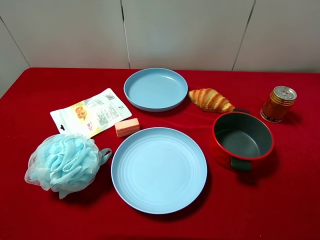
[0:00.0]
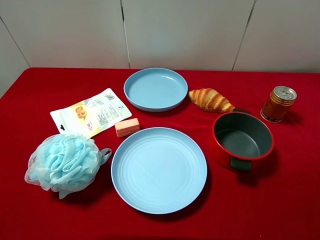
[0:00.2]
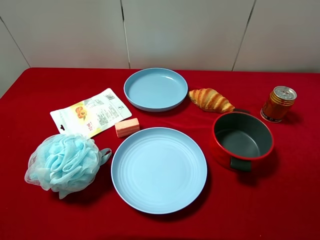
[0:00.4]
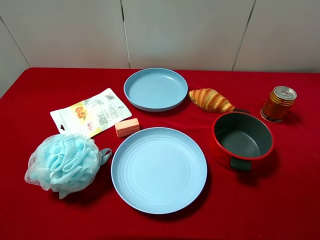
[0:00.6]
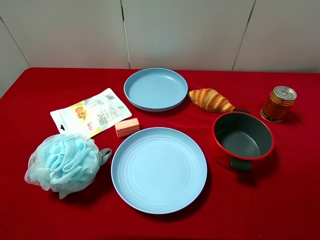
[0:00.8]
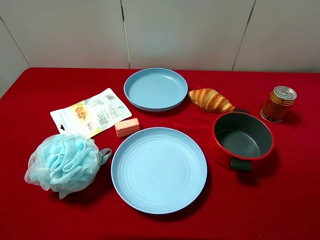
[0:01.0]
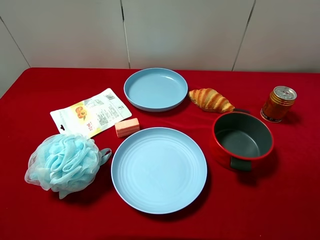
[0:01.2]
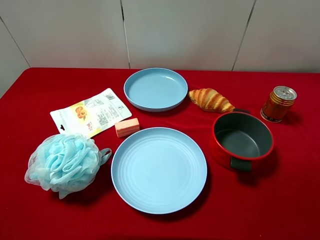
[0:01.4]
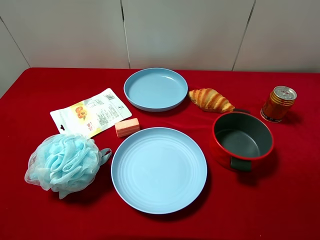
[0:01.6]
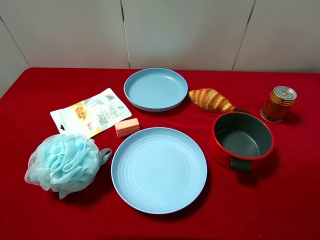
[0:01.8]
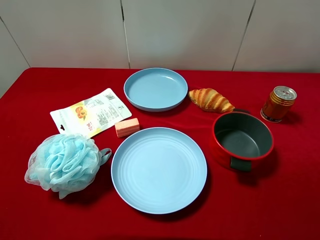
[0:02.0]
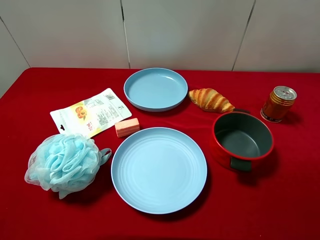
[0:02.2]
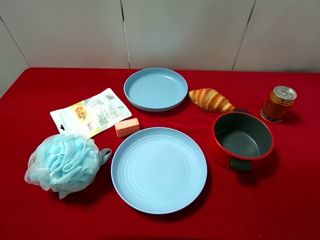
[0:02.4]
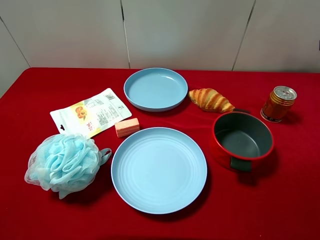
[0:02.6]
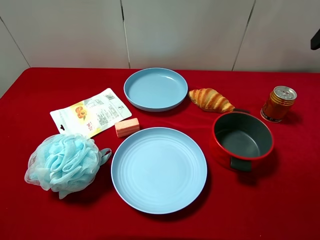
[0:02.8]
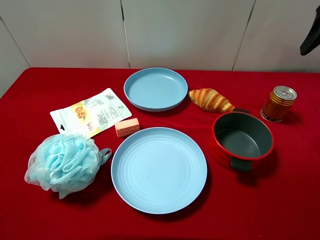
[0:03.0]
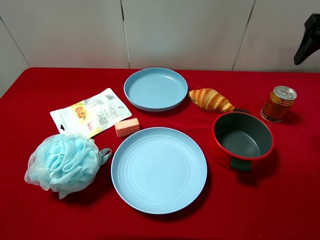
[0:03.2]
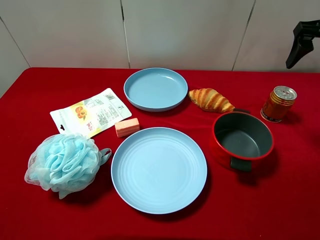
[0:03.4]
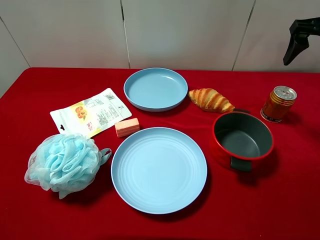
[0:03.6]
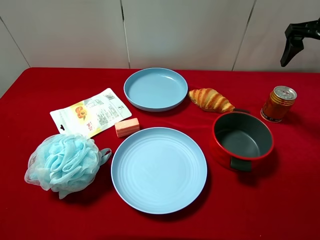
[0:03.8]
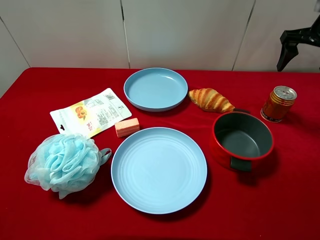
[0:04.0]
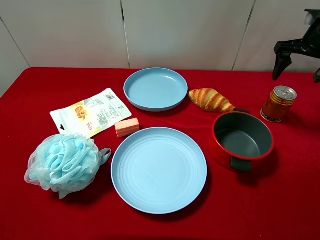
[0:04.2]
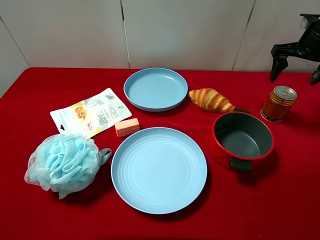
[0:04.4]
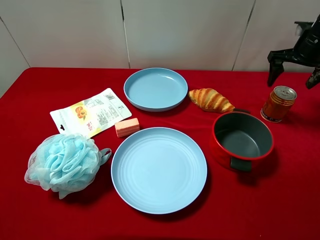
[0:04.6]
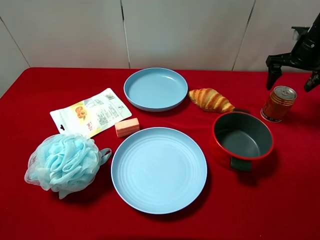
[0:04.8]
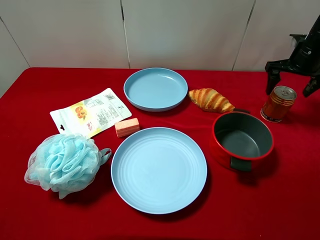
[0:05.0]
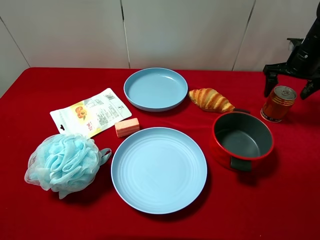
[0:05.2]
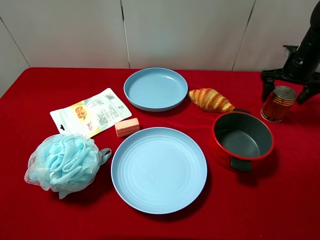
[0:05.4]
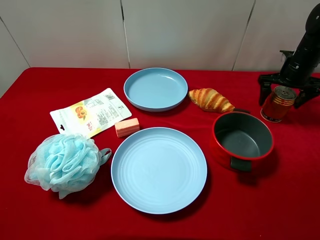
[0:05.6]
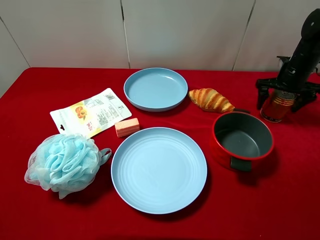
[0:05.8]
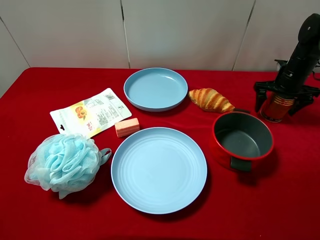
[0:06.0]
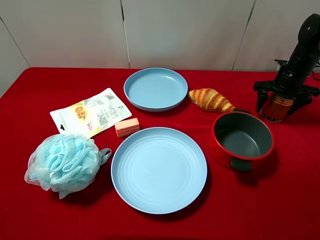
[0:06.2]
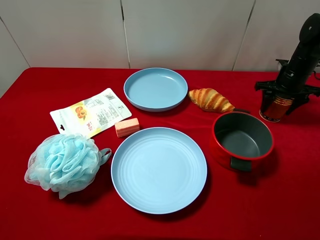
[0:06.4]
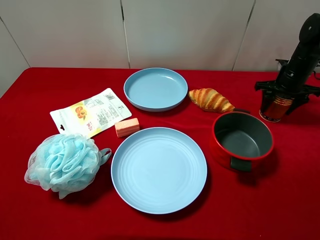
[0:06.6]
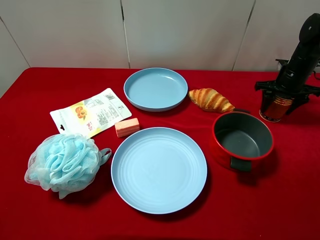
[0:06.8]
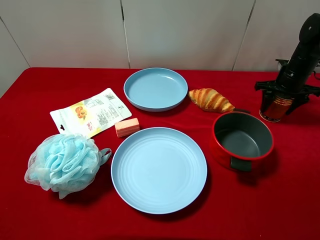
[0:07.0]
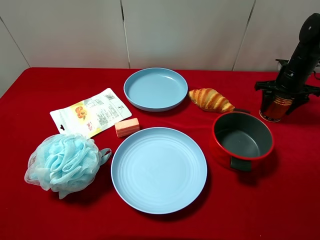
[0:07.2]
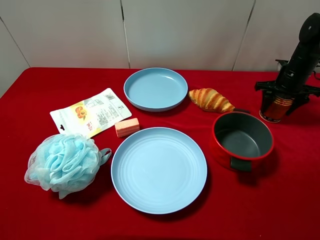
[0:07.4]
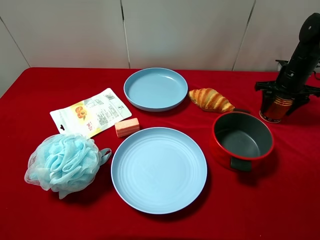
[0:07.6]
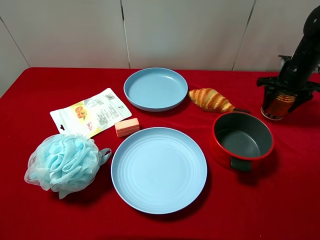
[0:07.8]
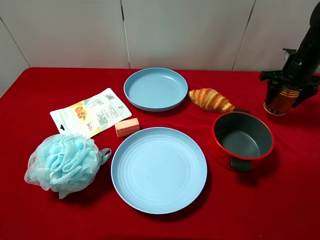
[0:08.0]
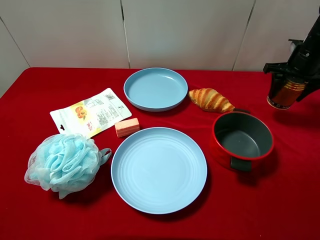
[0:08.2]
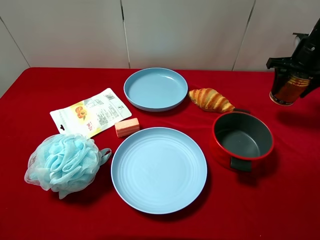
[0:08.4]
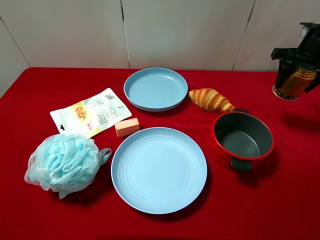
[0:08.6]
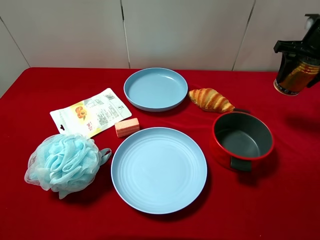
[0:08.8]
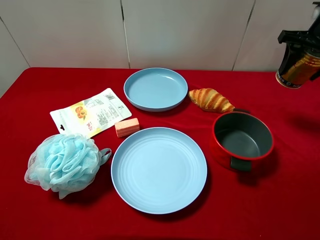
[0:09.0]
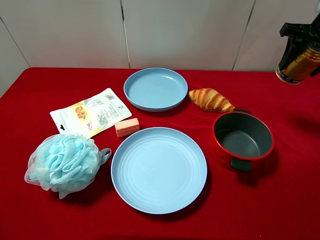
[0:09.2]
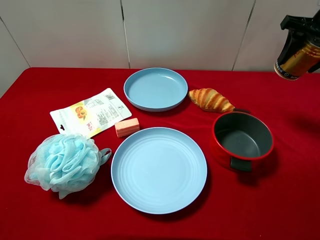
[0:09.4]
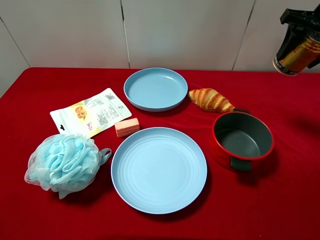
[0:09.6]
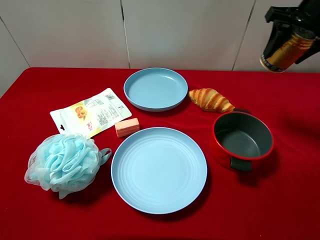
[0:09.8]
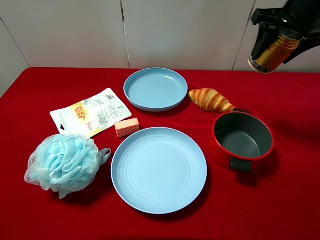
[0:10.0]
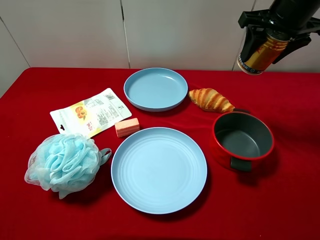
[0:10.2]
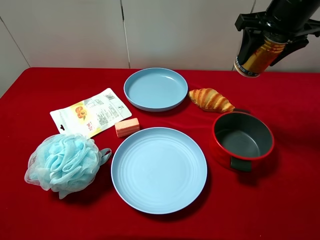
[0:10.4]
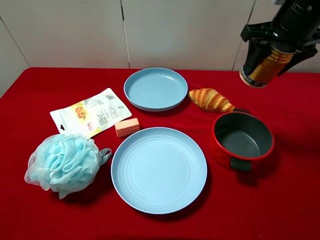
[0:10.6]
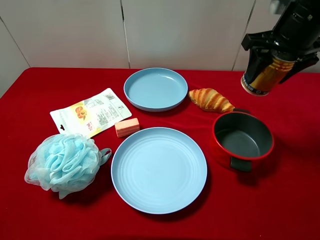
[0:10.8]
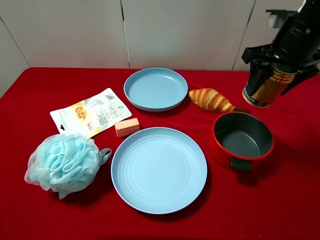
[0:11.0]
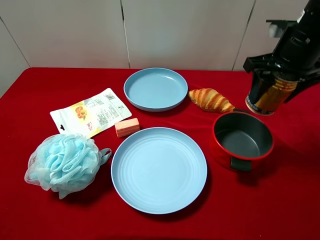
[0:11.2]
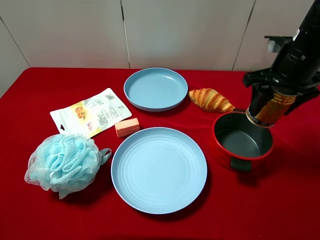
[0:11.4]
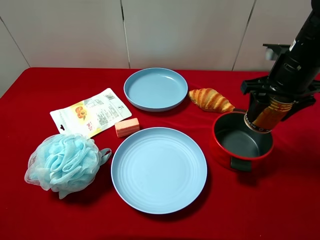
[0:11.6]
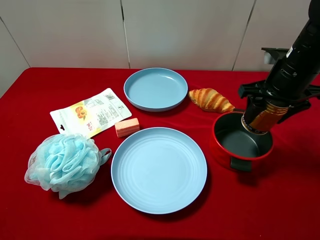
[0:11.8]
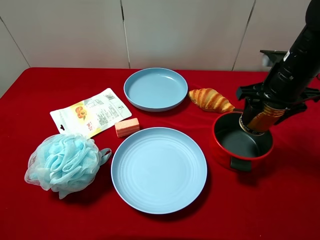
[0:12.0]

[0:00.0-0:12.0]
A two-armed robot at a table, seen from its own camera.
Task of the whole recording: pick up an item with a gripper and place it in a random container on the desktop.
0:03.0 to 0:04.4: The right gripper shifts about 15 cm forward and downward.
0:04.4 to 0:06.0: The right gripper travels downward by approximately 10 cm.
0:07.6 to 0:09.0: The right gripper travels upward by some 15 cm.
0:09.0 to 0:10.4: The right gripper travels to the left by roughly 10 cm.
0:10.4 to 0:12.0: The right gripper travels downward by approximately 10 cm.

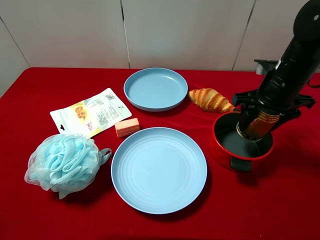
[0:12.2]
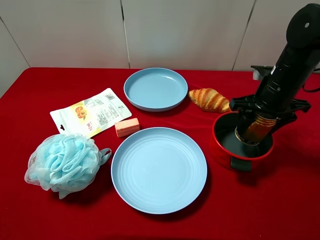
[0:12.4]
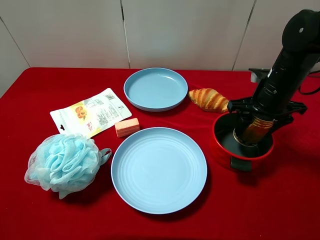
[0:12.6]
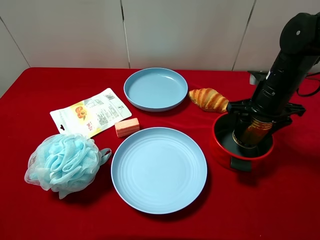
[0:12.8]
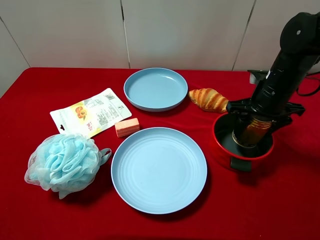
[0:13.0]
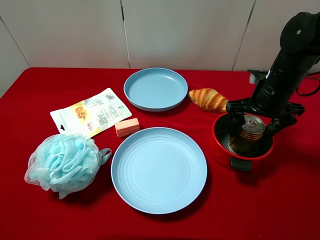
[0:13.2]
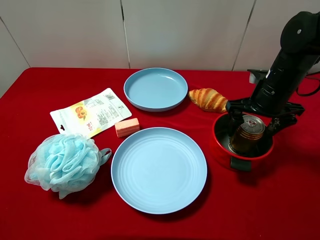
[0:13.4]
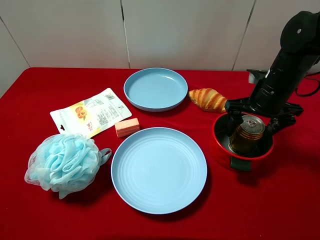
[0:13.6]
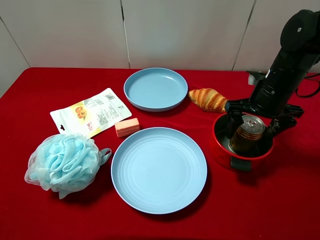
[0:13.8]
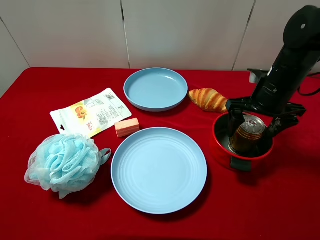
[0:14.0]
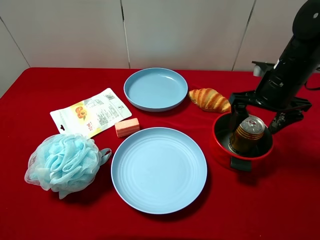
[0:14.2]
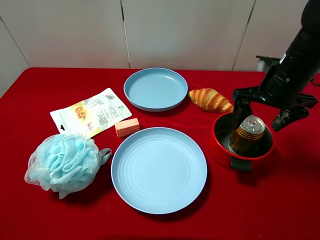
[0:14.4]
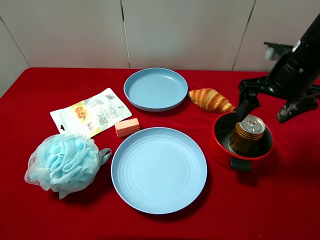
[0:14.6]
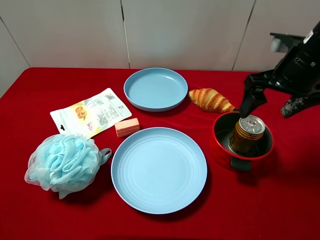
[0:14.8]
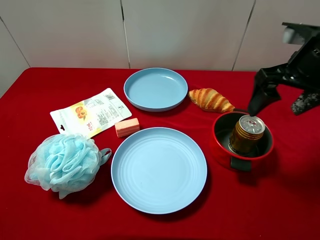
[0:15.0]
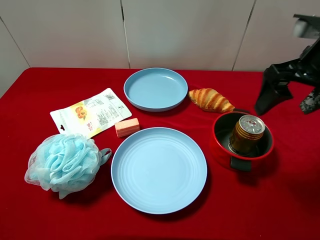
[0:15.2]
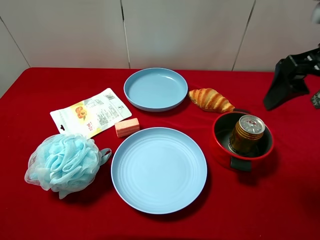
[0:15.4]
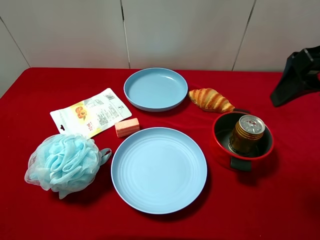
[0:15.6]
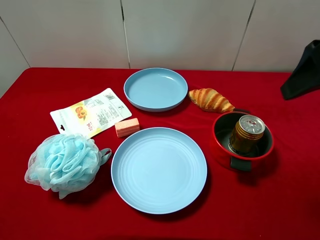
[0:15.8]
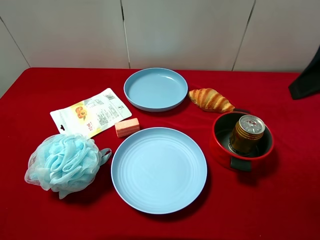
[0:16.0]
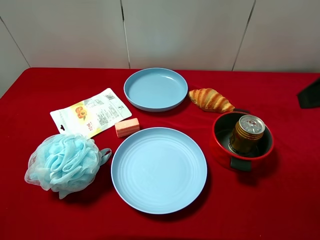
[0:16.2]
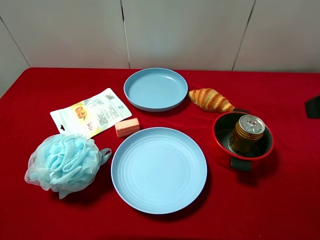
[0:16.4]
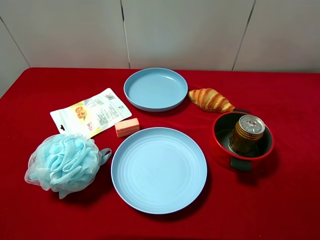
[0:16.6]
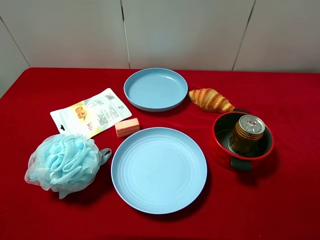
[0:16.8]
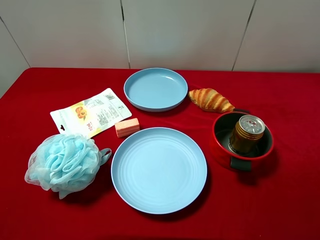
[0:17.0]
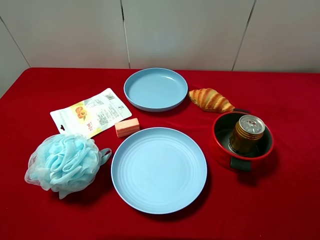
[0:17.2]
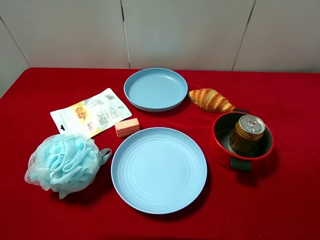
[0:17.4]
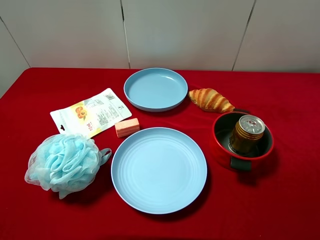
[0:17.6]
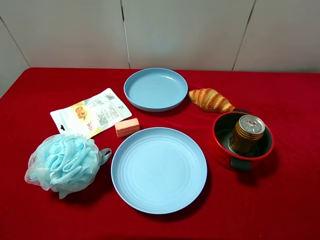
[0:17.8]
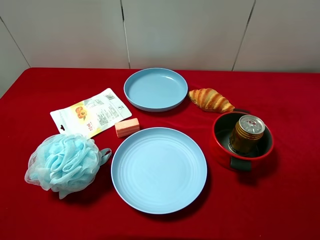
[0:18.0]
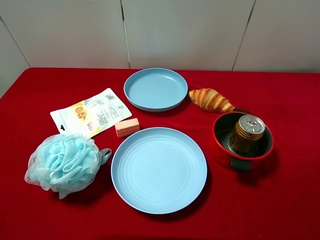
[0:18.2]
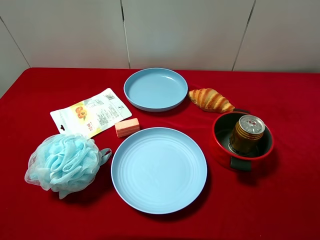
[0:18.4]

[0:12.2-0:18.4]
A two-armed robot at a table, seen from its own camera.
Task of the whole recording: pick up an item with a gripper and place it in a random container on the desktop.
0:12.2 to 0:13.8: The right gripper opens.
0:13.8 to 0:15.4: The right gripper moves upward and backward, roughly 15 cm.
0:15.4 to 0:16.8: The right gripper travels backward by some 15 cm.

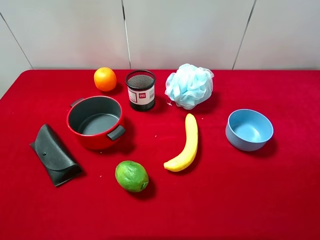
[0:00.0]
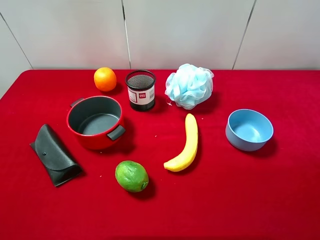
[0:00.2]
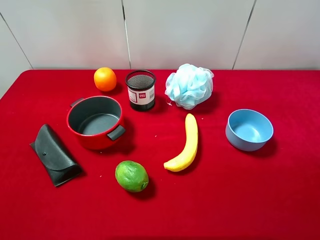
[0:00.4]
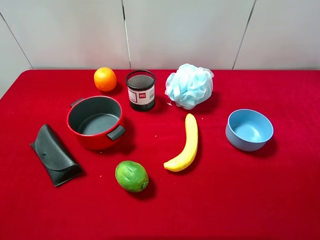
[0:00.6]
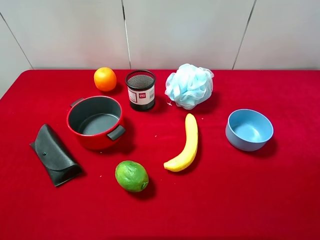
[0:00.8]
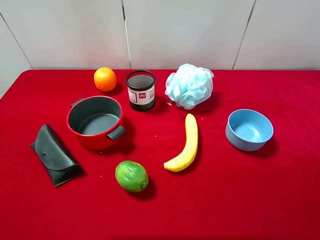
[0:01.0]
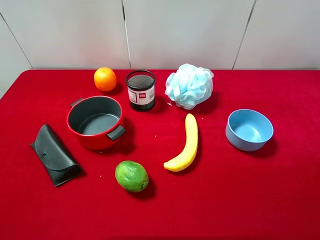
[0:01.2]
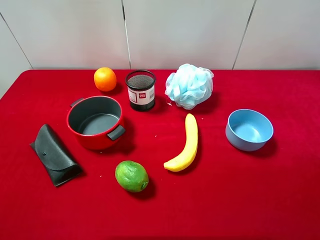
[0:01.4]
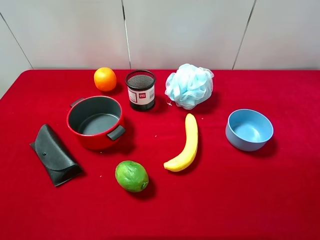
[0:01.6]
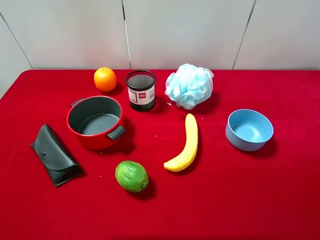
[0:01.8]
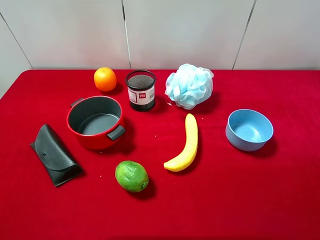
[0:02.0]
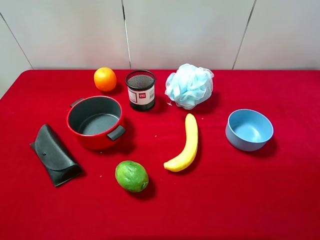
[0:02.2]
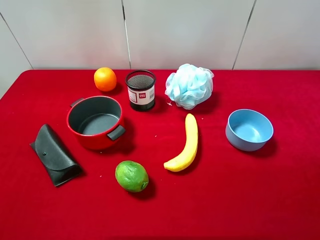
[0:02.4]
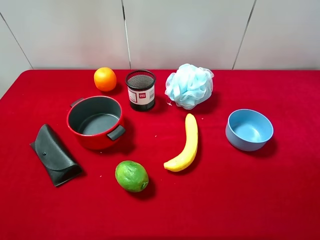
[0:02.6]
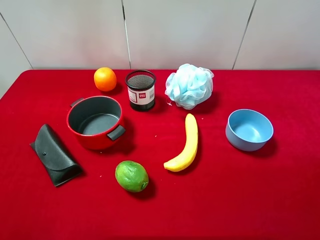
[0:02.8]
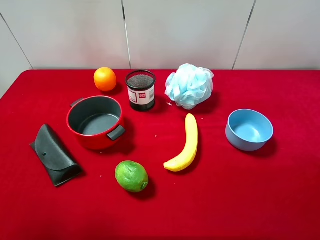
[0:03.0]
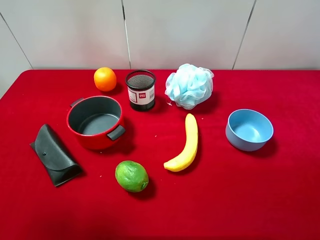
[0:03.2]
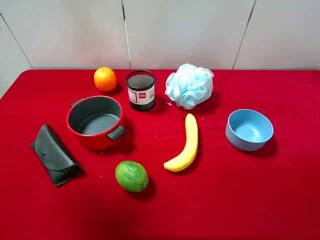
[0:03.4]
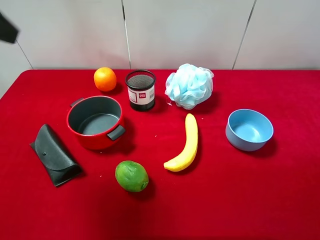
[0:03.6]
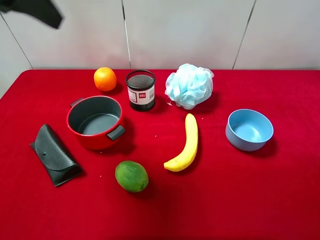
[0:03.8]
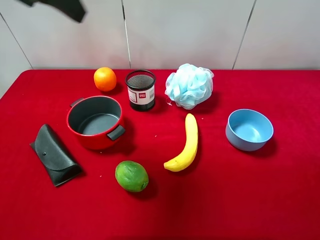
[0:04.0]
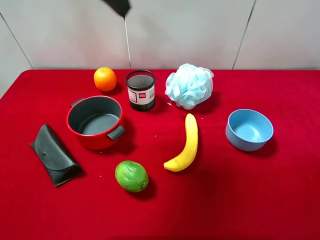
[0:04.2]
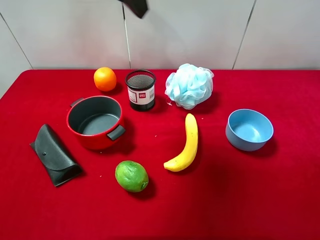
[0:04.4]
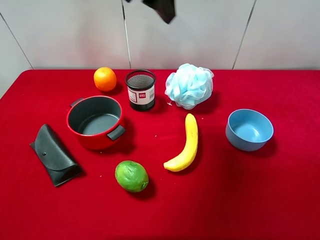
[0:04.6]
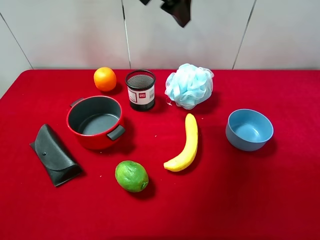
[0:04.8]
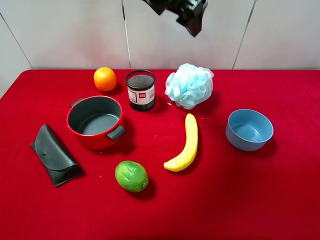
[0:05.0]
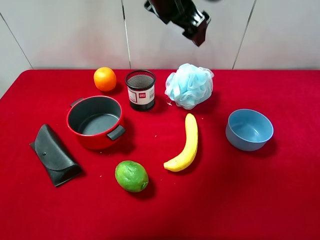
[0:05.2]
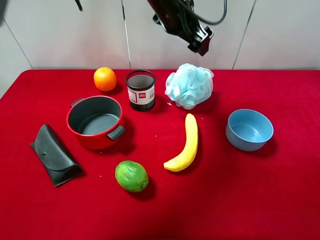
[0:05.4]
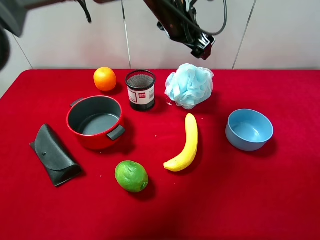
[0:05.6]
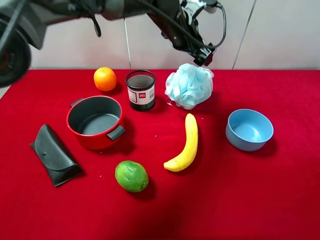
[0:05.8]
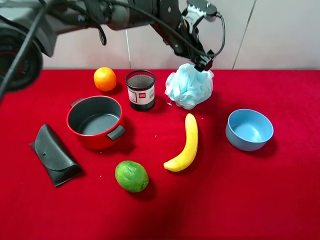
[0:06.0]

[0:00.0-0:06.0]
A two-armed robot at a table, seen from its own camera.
Task of the whole recording: pick up an item with a gripper and place it in a random container on the desktop.
0:00.0 to 0:01.6: Both grippers stay put.
0:03.0 to 0:04.4: The left gripper heads to the right and forward, covering approximately 30 cm.
0:04.4 to 0:06.0: The left gripper shifts some 25 cm downward, to the right and forward.
